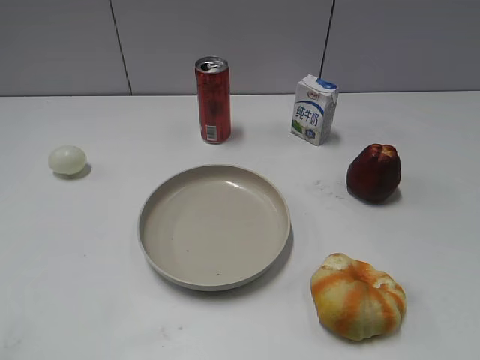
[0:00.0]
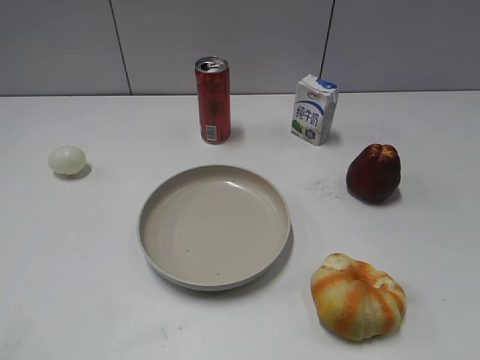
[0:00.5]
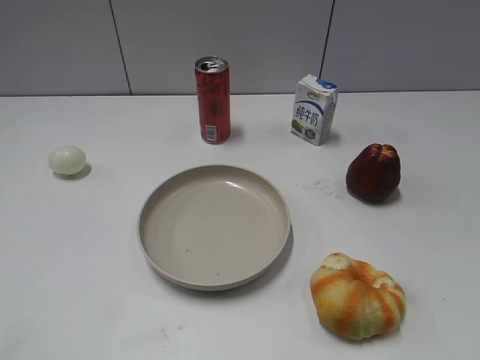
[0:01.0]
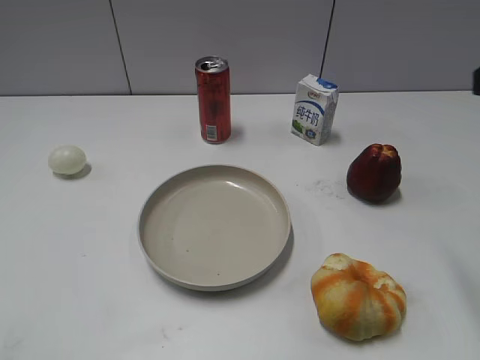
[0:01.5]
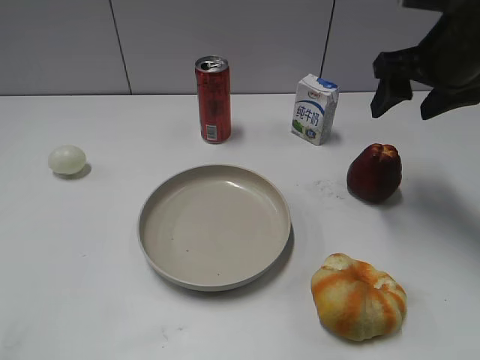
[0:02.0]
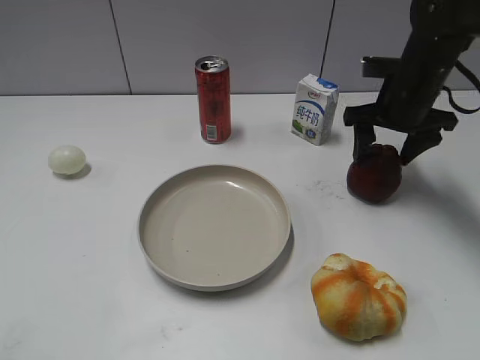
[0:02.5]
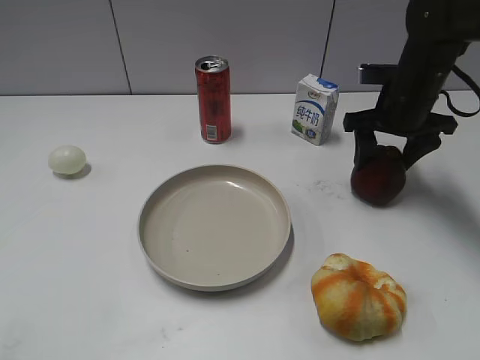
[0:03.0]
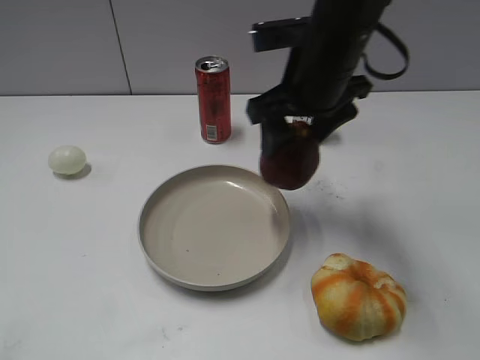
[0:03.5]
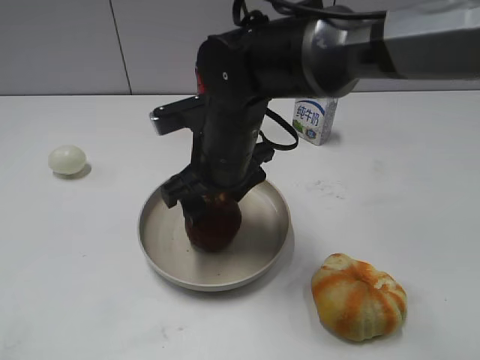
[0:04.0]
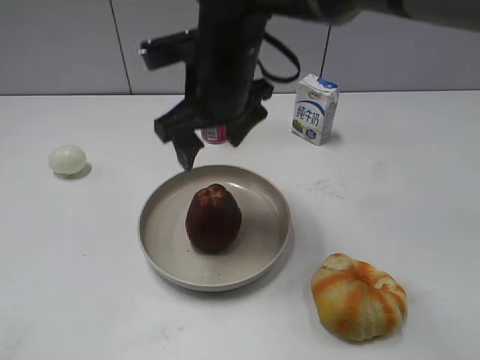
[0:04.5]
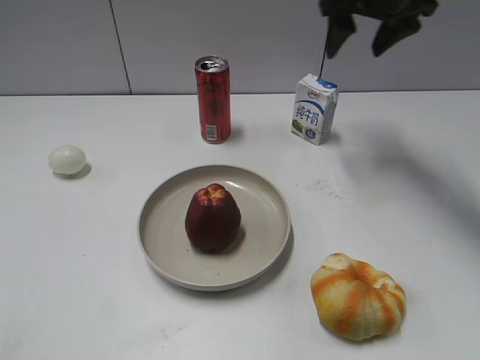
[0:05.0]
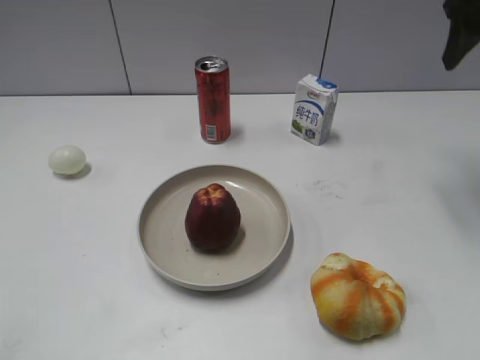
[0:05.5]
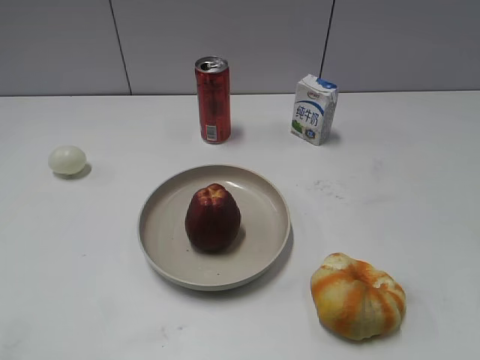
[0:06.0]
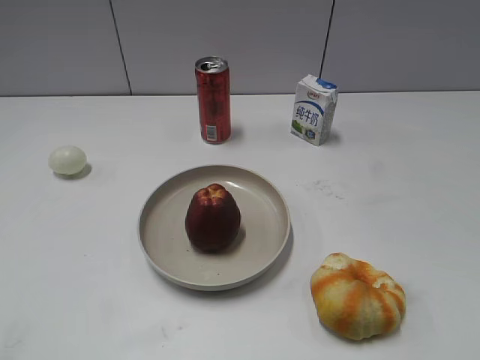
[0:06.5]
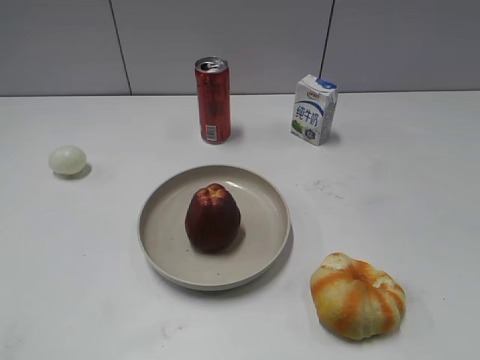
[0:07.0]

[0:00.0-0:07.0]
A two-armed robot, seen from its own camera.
Step, 0:01.0 to 0:02.5: Grasp the apple with right gripper.
Step, 0:03.0 to 0:04.0: Place the apple on the plate with right gripper.
0:02.0 to 0:03.5: The right gripper travels to the left by roughly 15 cm.
0:03.5 to 0:05.0: The right gripper shifts about 15 cm forward, to the right and upward.
0:05.0 to 0:07.0: The right gripper is displaced backward by some 40 cm.

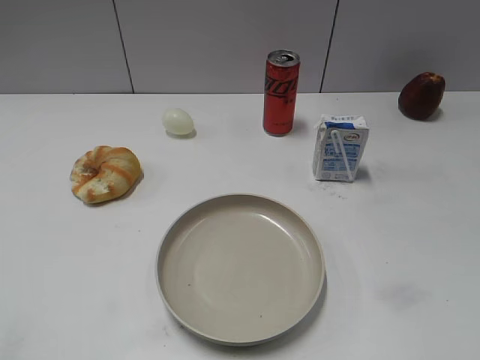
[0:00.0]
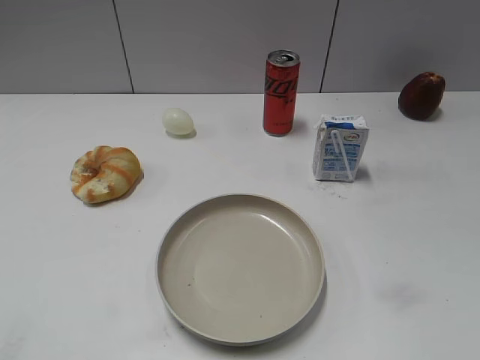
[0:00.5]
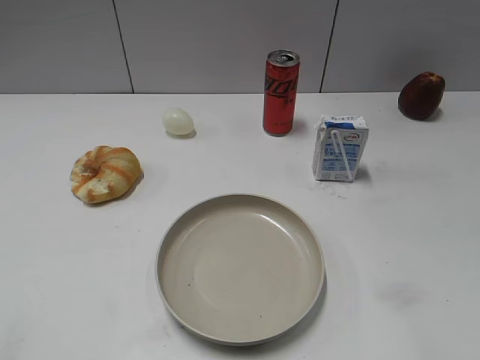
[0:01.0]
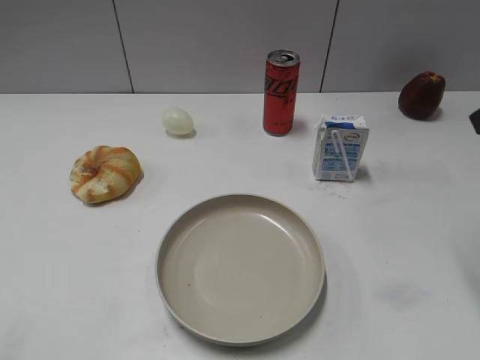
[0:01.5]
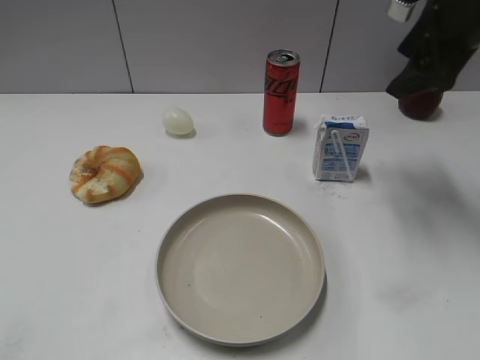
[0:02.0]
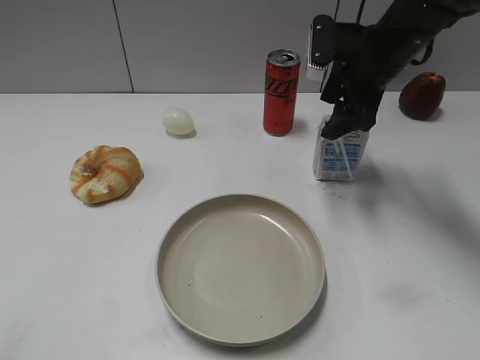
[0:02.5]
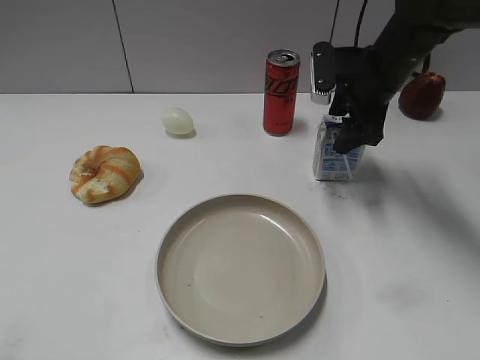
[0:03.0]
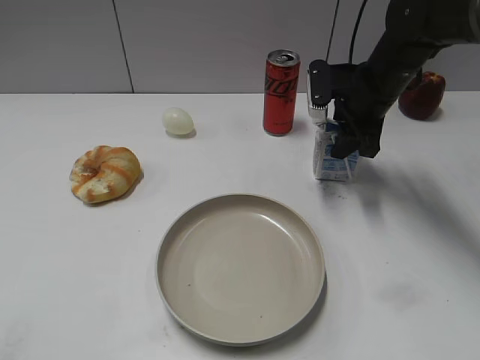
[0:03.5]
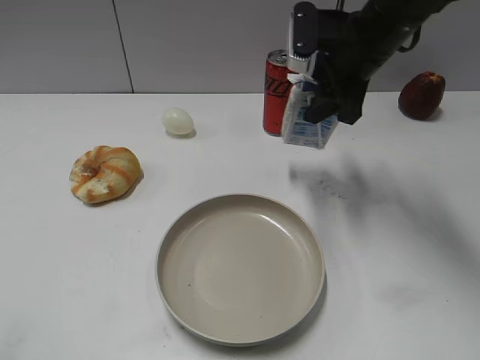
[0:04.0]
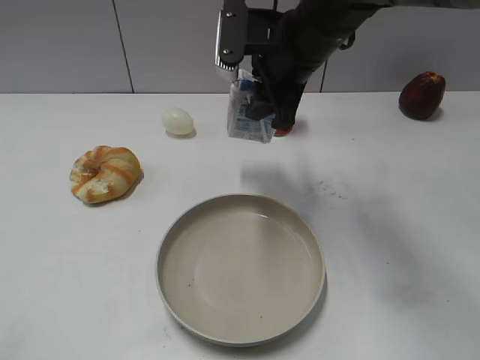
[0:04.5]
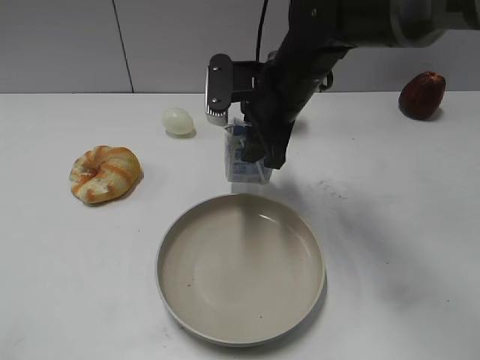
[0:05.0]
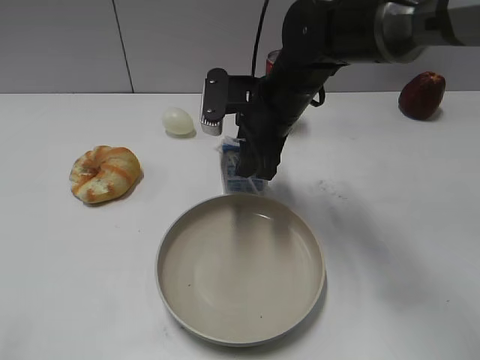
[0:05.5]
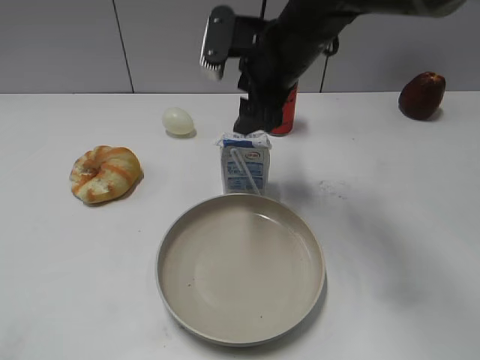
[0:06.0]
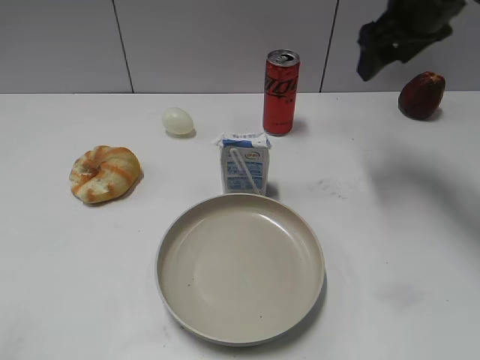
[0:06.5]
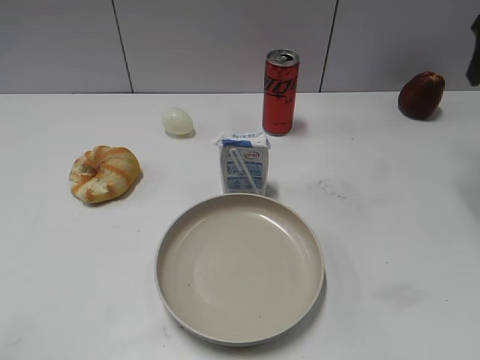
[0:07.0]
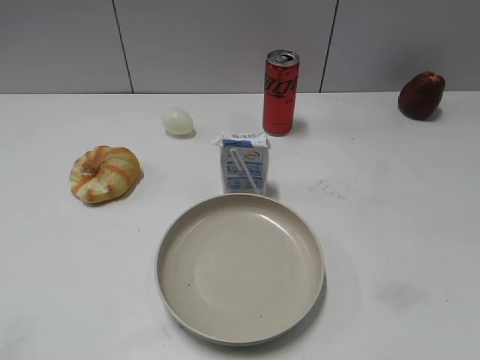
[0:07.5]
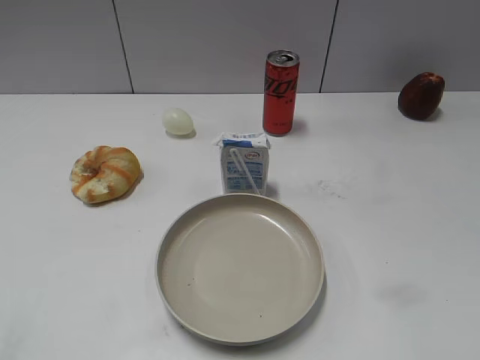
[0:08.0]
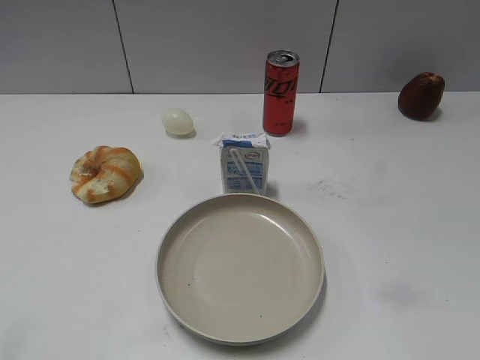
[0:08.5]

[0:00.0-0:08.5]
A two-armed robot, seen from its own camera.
Step, 0:00.5 to 0:03.0: Grasp the milk with right gripper.
Step, 0:04.0 to 0:05.5: Place the milk on the table with right gripper.
0:02.0 to 0:04.0: The right gripper shifts approximately 10 cm to the left, and closes.
0:04.0 to 0:06.5: The right gripper shifts about 10 cm to the right, and opens its fingers.
0:06.5 to 0:08.5: The right gripper is displaced backward by some 40 cm.

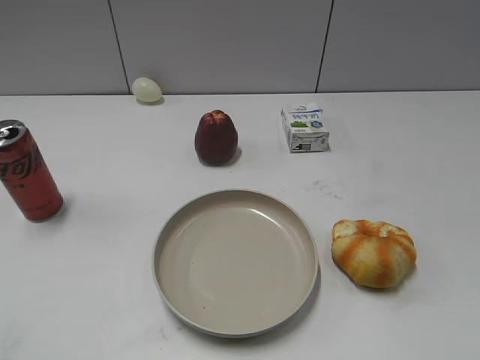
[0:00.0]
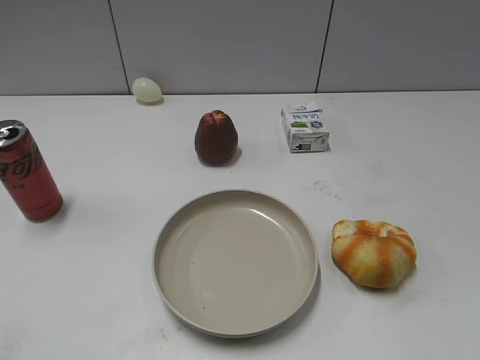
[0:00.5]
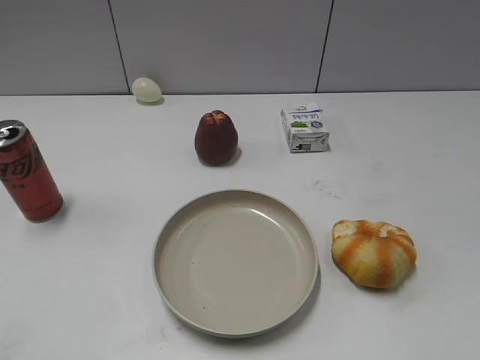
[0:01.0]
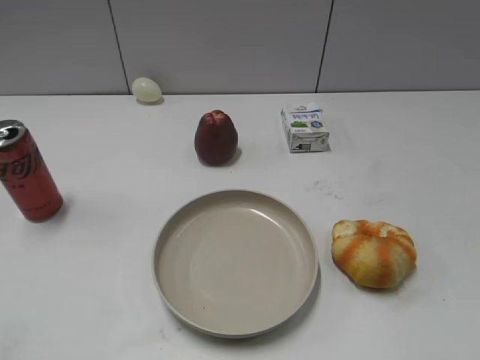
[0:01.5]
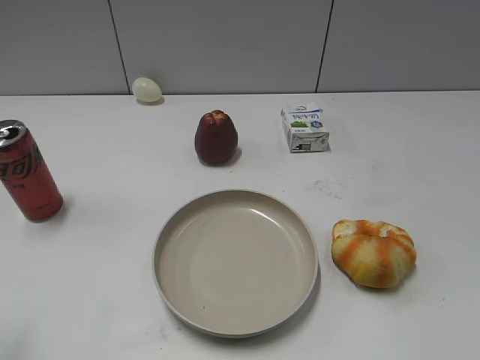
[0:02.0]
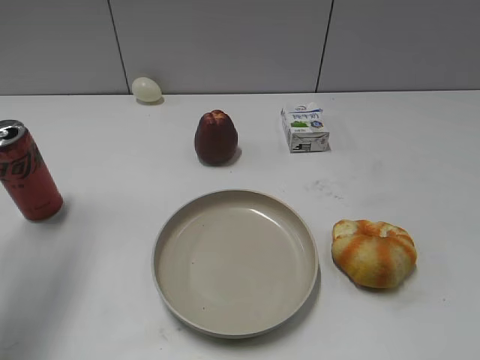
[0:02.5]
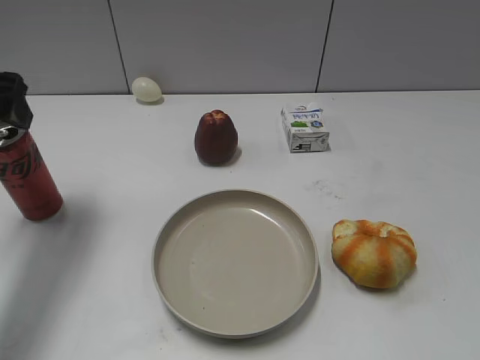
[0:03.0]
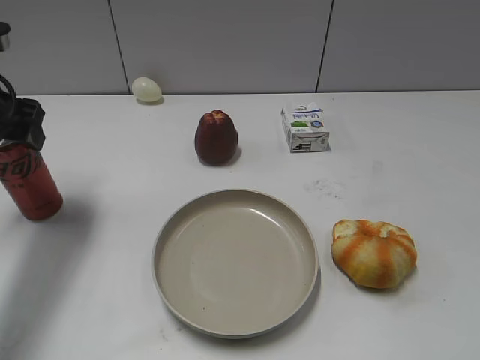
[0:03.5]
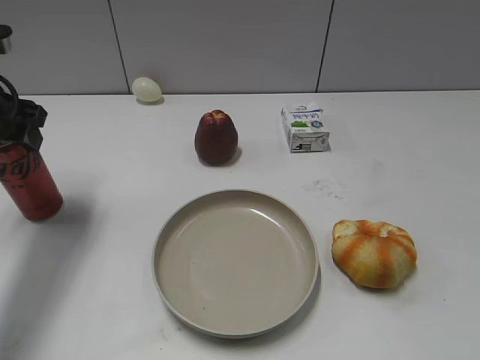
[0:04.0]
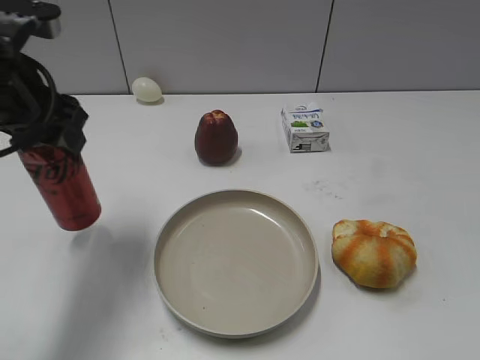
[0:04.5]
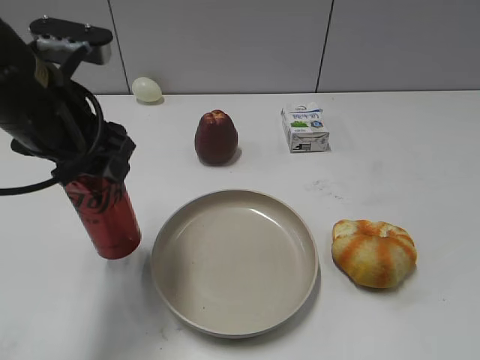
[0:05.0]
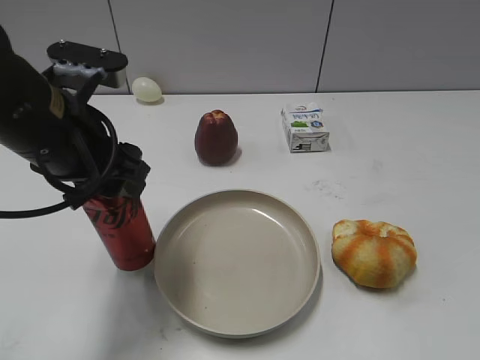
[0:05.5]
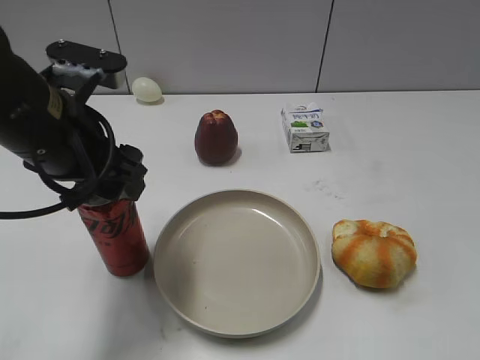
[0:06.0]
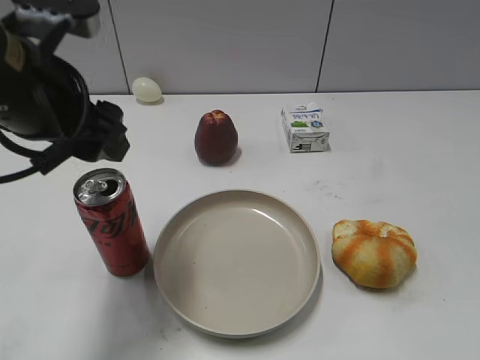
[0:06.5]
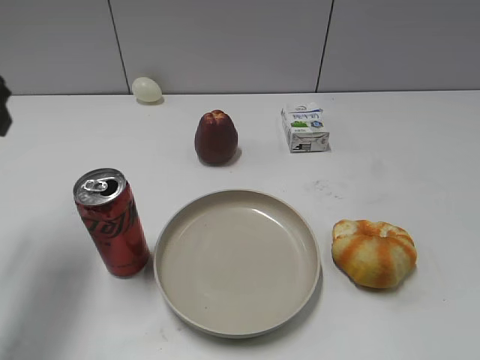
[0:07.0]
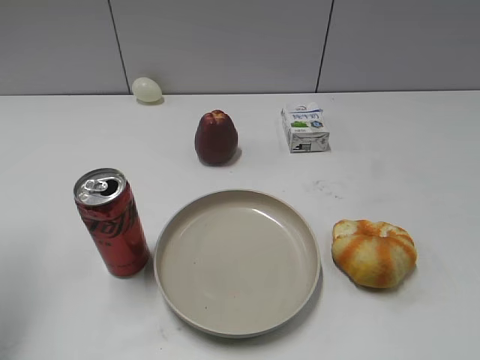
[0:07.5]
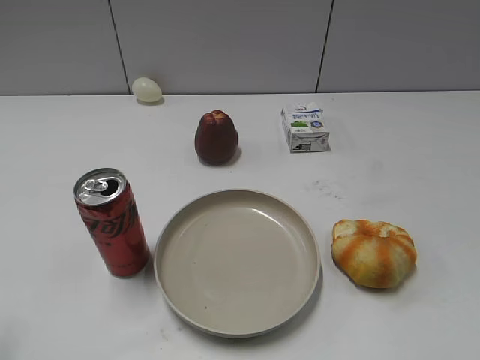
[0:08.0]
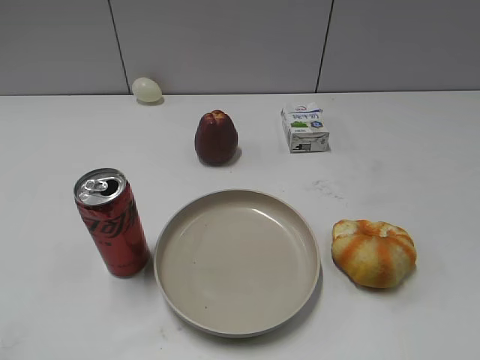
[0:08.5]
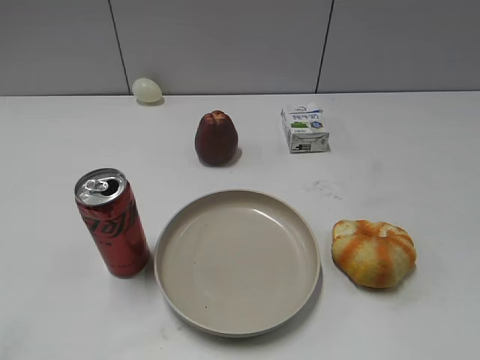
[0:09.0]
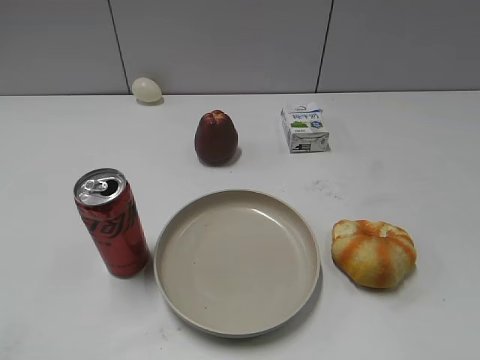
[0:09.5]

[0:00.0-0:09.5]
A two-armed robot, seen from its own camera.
Step, 0:02.0 to 0:03.5: Grasp the cola with left gripper.
Step, 0:04.5 to 0:06.0: Place the cola on the table with left gripper.
0:02.0 to 0:04.0: The left gripper moves forward, roughly 25 cm, and opens and closes again.
0:04.0 to 0:05.5: The left gripper travels to the right and backward by about 15 cm.
0:05.5 to 0:07.5: The left gripper moves to the left, approximately 15 cm, and opens its fingers.
0:07.5 to 0:09.5: The left gripper shifts some 25 cm backward.
